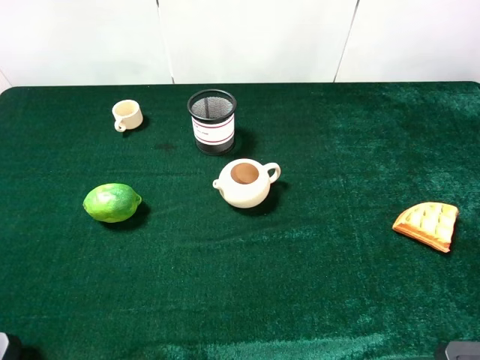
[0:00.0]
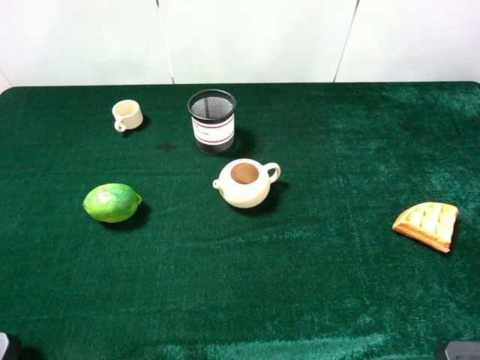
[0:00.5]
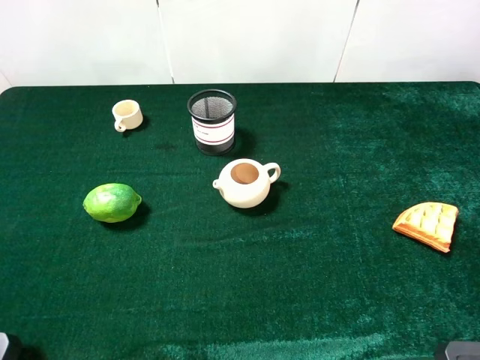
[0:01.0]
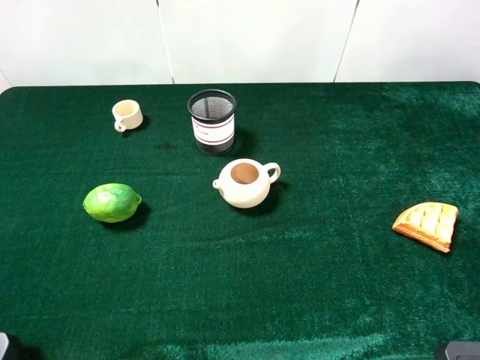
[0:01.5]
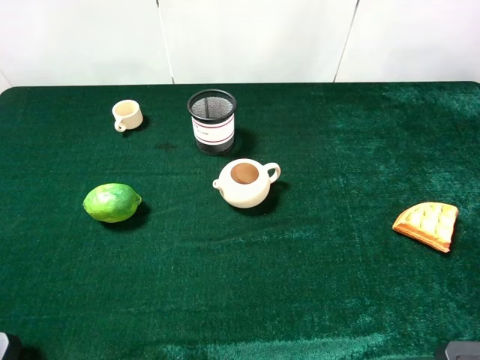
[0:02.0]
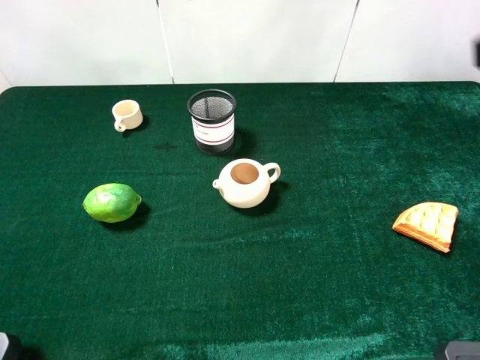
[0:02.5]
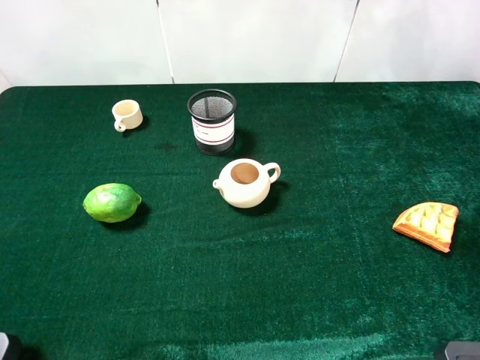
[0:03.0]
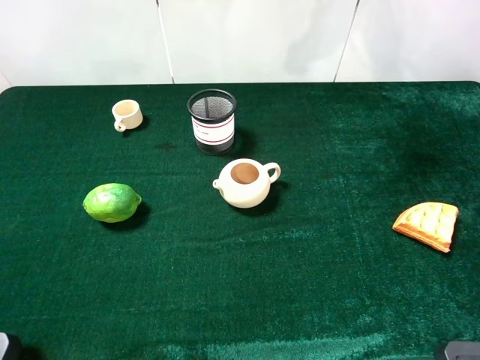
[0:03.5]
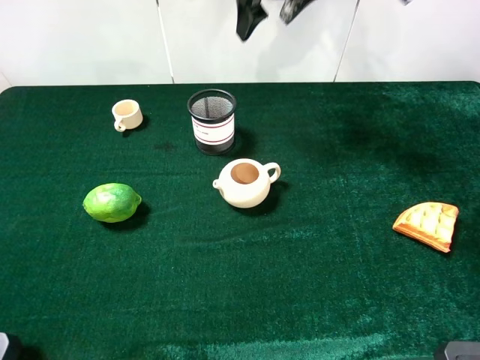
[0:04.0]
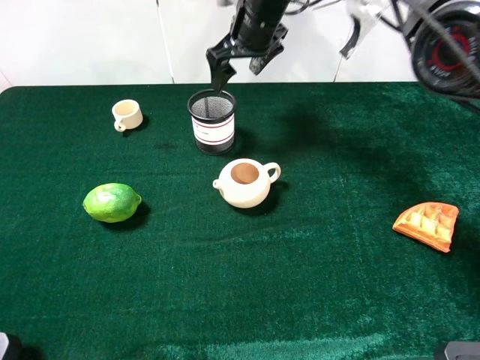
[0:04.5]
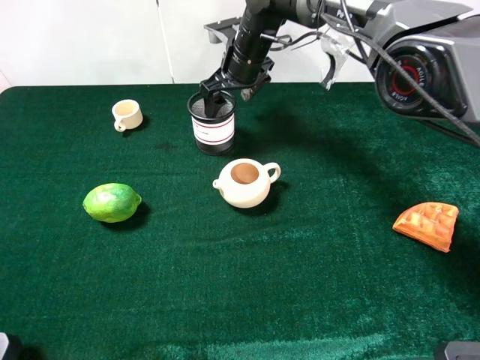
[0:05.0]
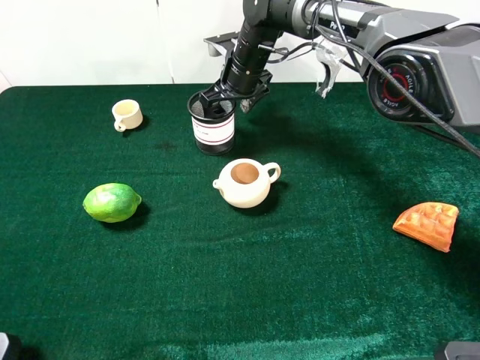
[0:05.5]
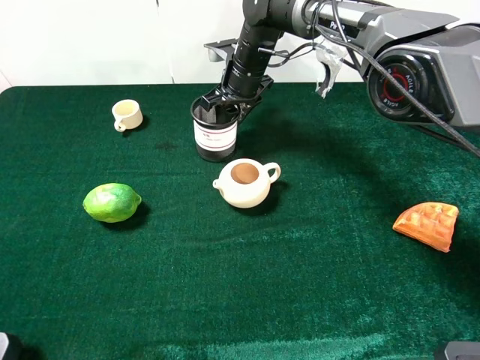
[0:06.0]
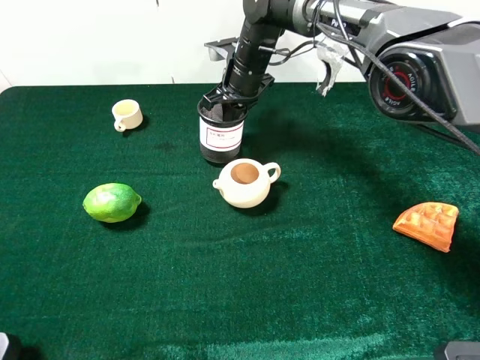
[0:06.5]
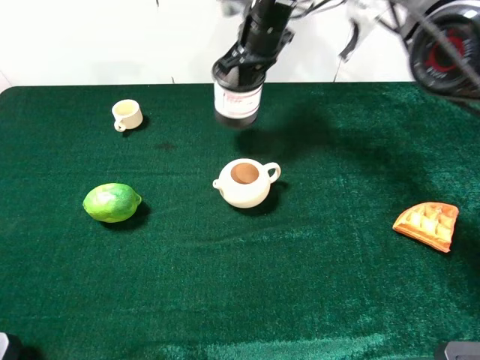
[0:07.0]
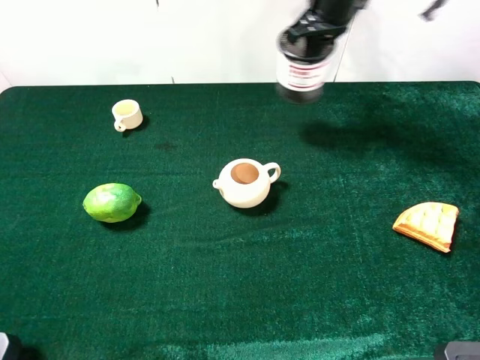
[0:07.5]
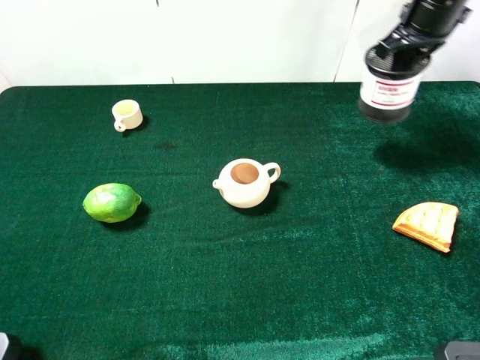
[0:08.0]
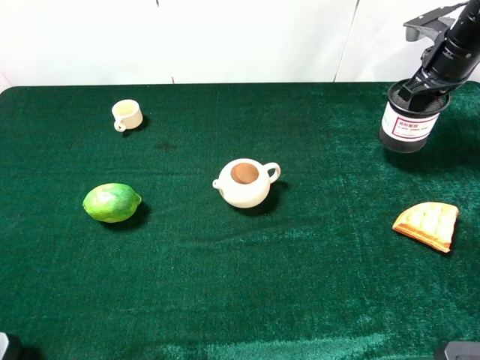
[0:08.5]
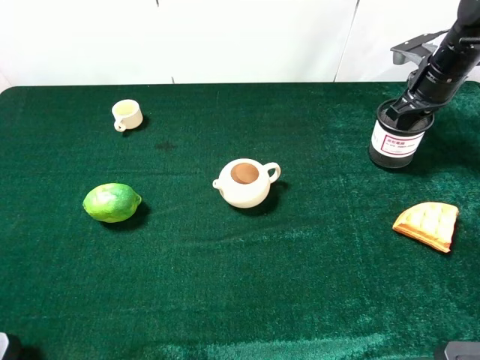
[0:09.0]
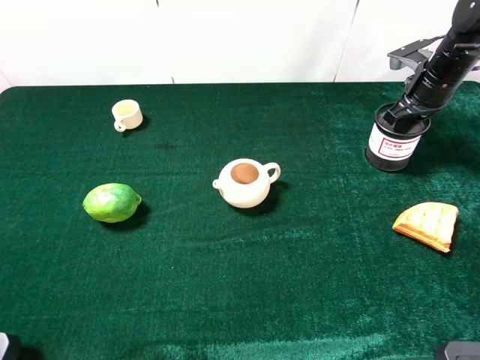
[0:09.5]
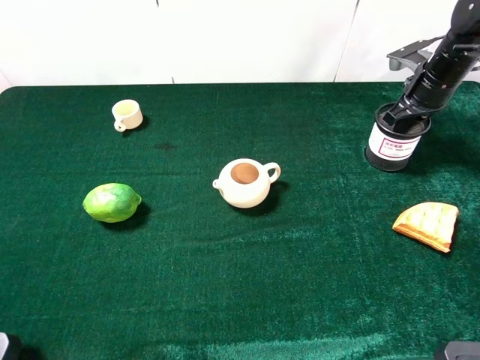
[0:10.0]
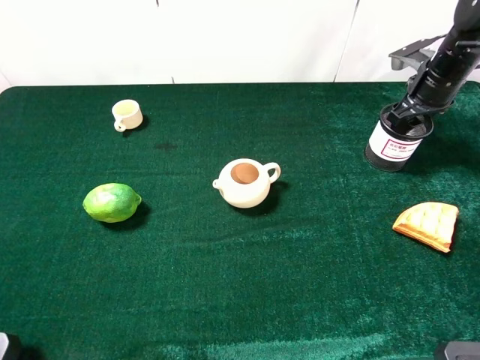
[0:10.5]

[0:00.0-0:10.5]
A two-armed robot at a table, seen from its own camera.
Task of the whole recording: the gripper move the object.
Step, 0:00.0 to 0:06.0: Grasp the pen container with the right gripper.
Step, 0:06.5 to 0:10.0: Place the pen container on the table with the right gripper.
0:02.0 to 0:04.0: The right gripper shifts about 50 cm forward and to the left.
0:04.0 to 0:06.5: The right gripper shifts roughly 15 cm downward, and closes up.
0:06.5 to 0:08.5: The right gripper moves to the right, roughly 30 cm.
0:08.5 to 0:10.5: The right gripper opens.

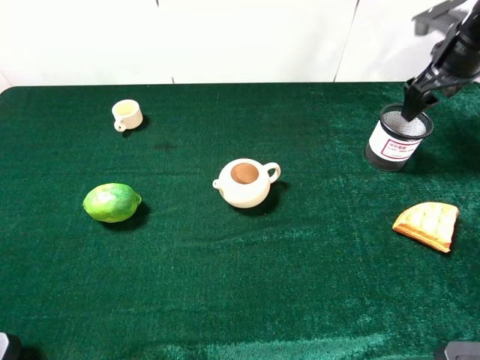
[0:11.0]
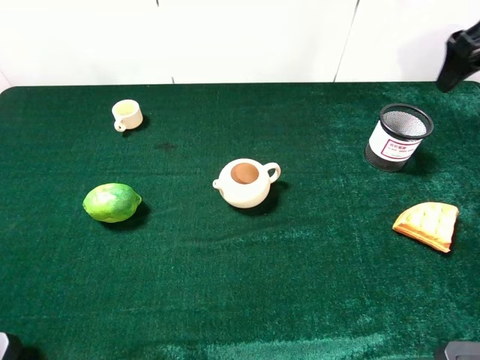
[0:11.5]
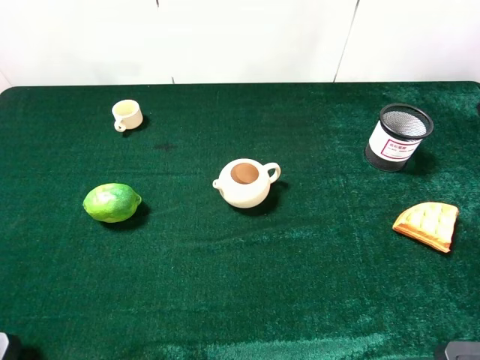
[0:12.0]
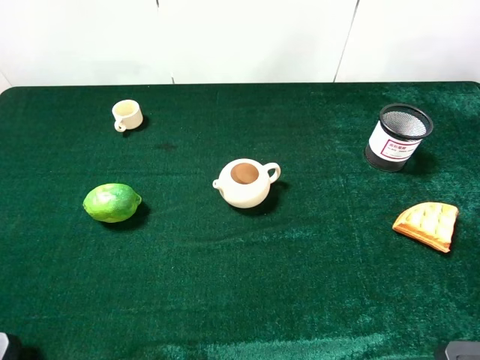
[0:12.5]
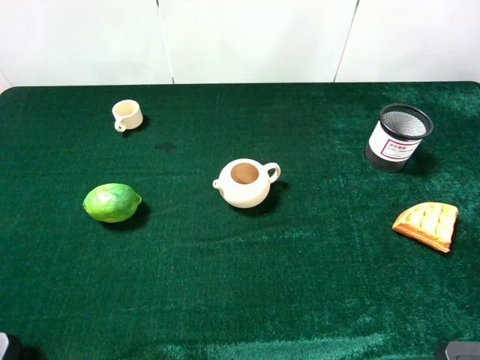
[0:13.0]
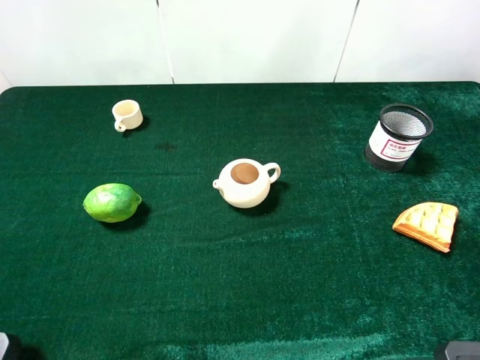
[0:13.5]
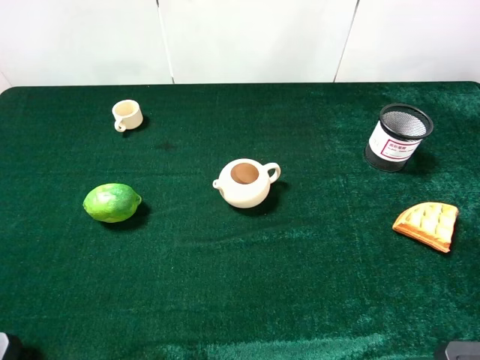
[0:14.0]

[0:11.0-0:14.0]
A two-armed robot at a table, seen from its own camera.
Task of the whole recording: the gripper move the object.
0:11.0 to 0:12.5: The right gripper travels backward by roughly 40 cm.

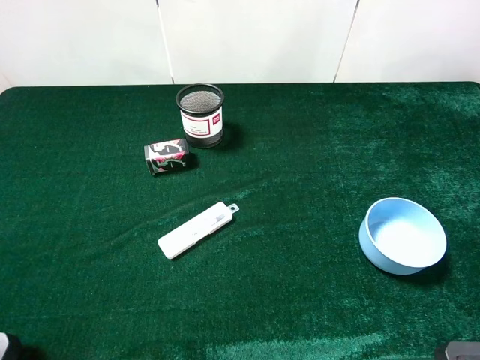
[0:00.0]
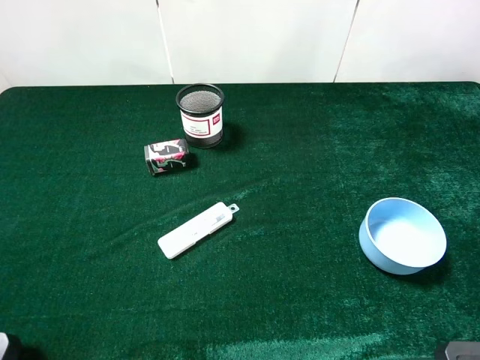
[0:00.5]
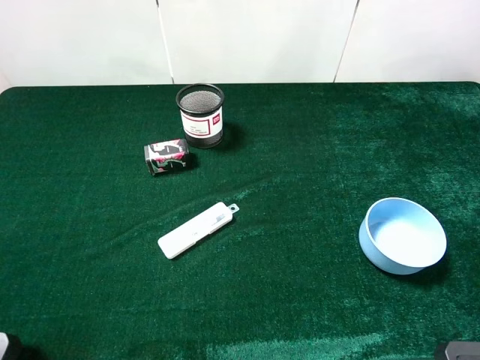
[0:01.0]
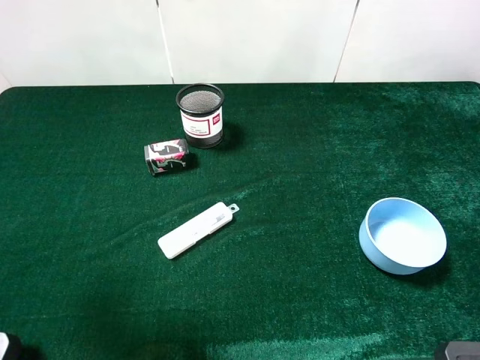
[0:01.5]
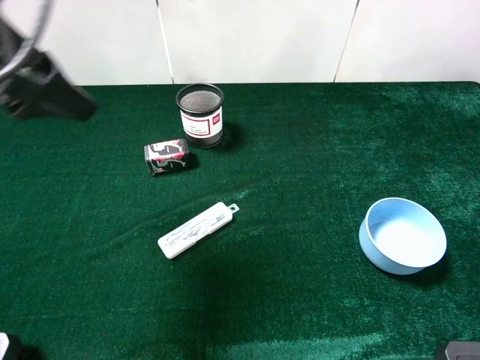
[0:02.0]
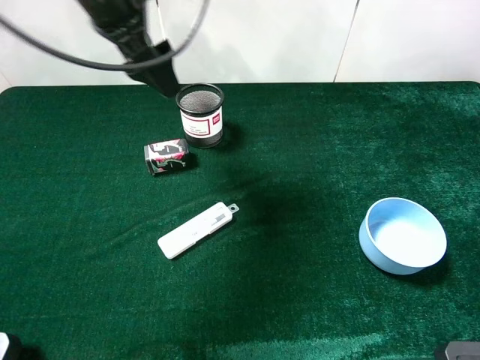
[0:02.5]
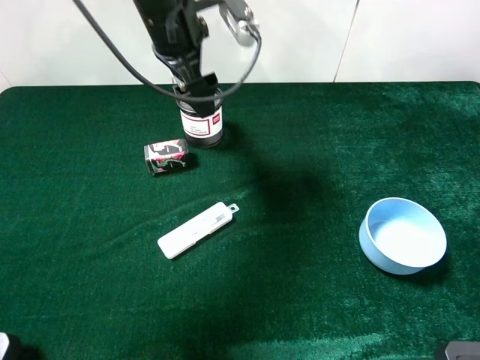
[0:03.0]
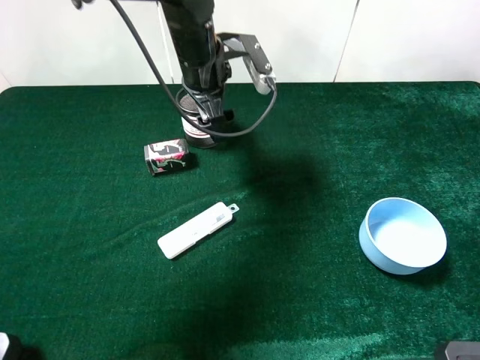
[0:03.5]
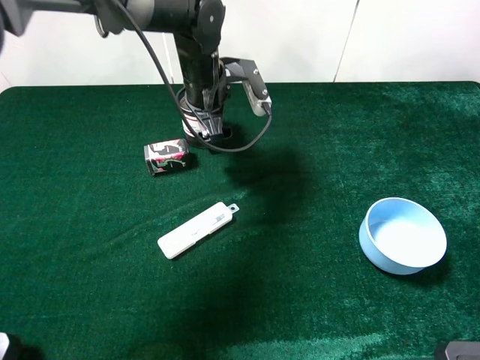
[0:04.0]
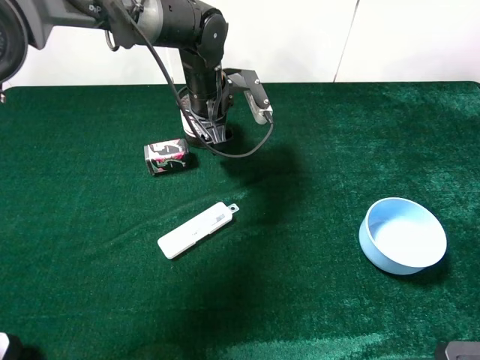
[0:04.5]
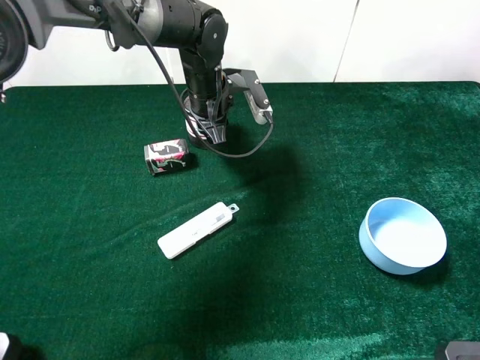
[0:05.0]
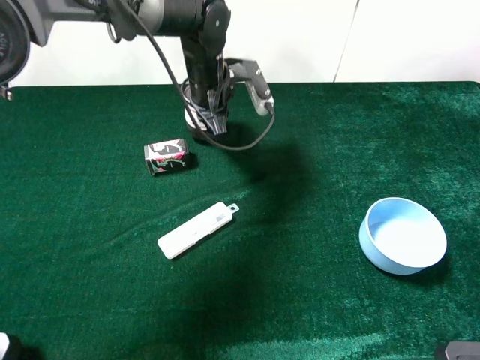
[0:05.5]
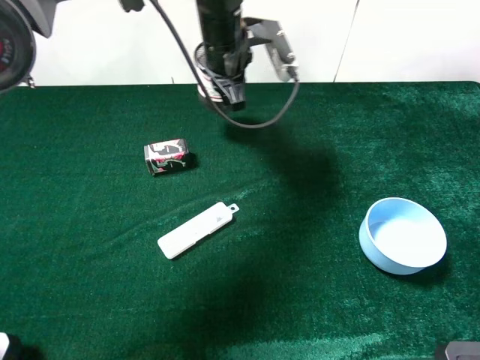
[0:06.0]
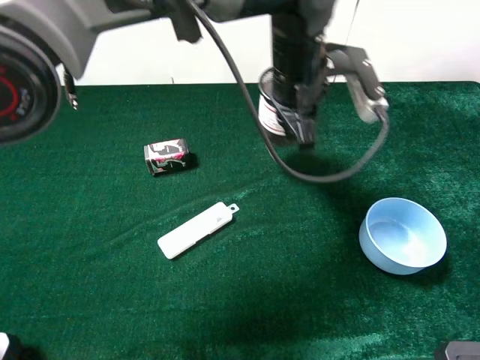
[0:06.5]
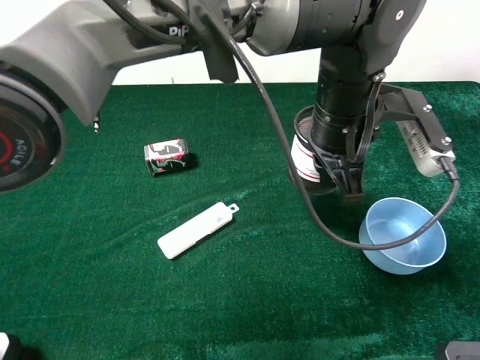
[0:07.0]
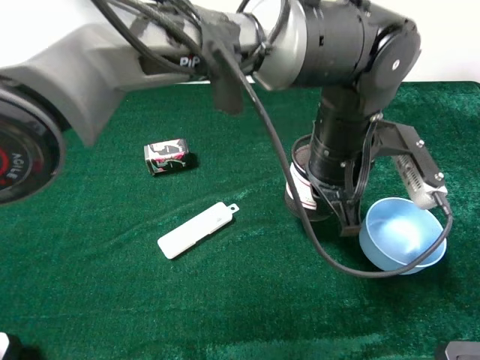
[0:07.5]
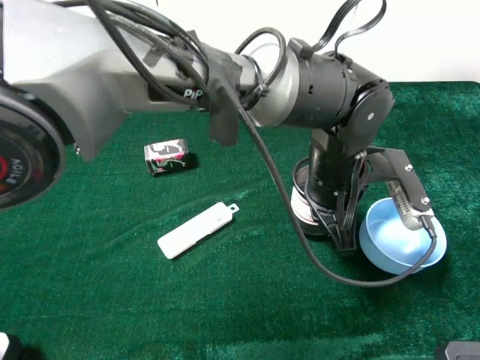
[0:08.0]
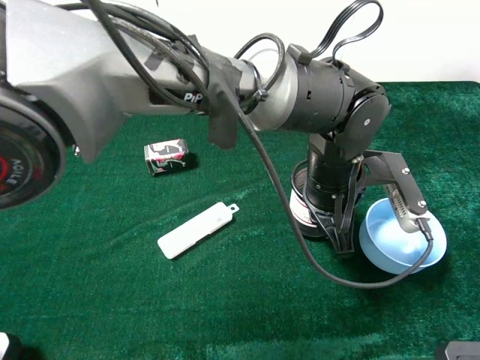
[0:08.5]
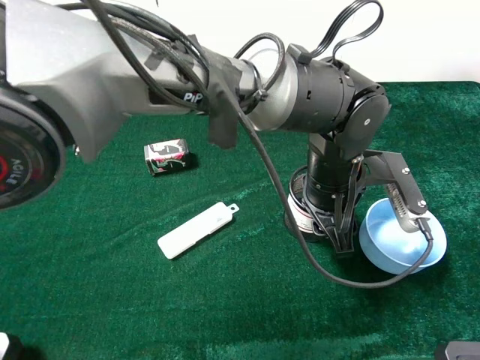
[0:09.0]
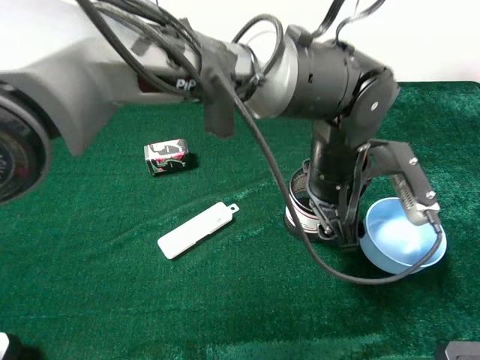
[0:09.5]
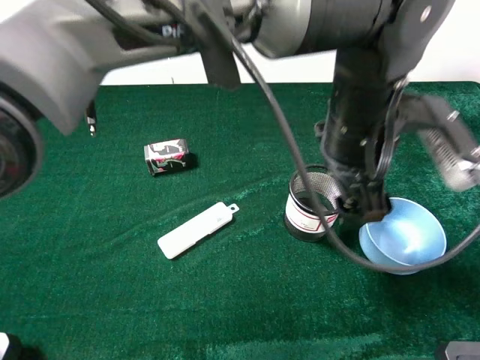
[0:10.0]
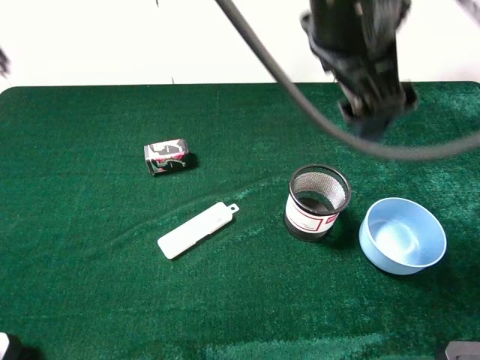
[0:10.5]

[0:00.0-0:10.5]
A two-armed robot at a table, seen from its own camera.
Task of the whole recording: the gripper move the object.
Step, 0:00.0 to 0:05.0: Grasp the pen container with the left gripper.
Step, 0:05.5 to 0:08.5: Place the pen container on the table with the left gripper.
0:00.0 to 0:02.0: The left gripper is displaced forward by approximately 20 cm.
0:02.0 to 0:04.0: The left gripper goes approximately 30 cm downward, forward and to the right.
0:04.0 to 0:06.5: The left gripper is displaced to the right, backward and upward by some 15 cm, and closes.
0:06.5 to 0:08.5: The left gripper travels backward and downward by roughly 10 cm.
0:08.5 to 0:10.5: The left gripper travels upward by approximately 20 cm, and opens.

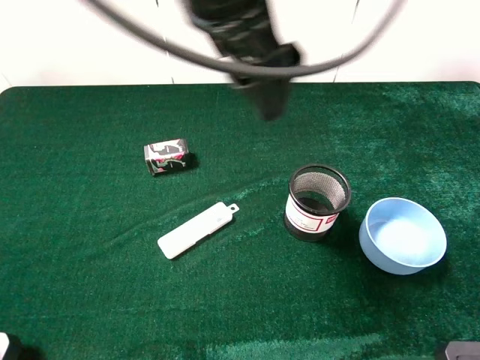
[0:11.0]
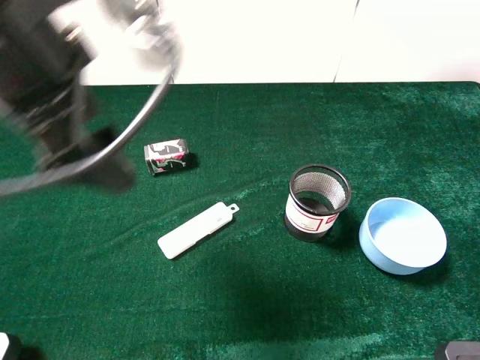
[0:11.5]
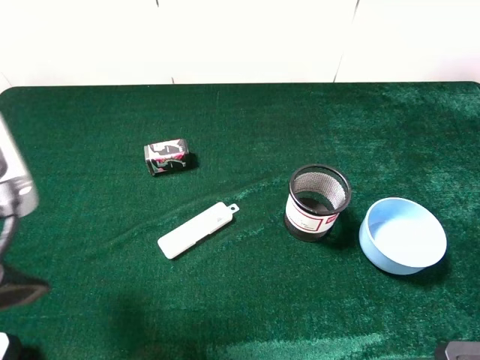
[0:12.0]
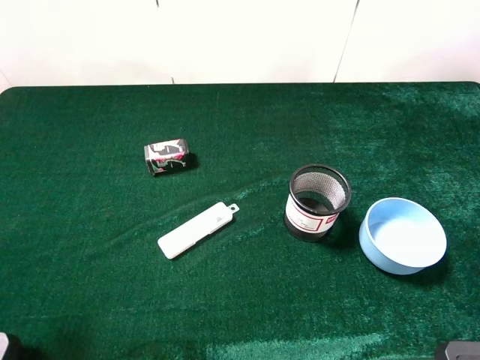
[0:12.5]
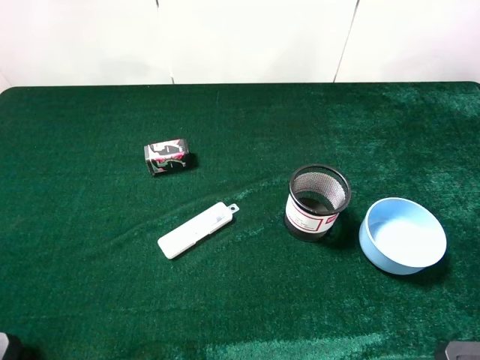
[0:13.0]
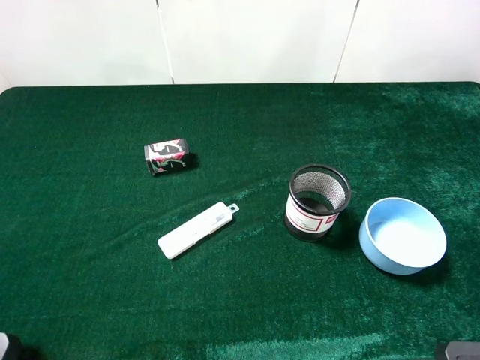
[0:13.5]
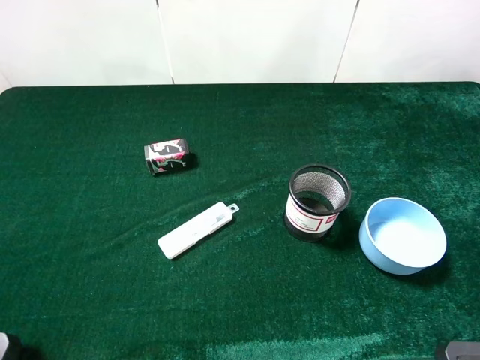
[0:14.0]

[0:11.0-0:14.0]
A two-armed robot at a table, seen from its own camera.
Task of the whole recording: the gripper move the object.
0:11.0 to 0:12.5: The left gripper is displaced to the left and backward by roughly 35 cm.
